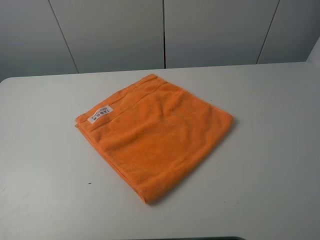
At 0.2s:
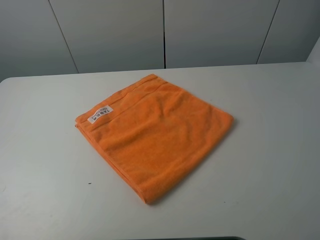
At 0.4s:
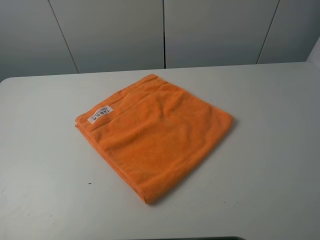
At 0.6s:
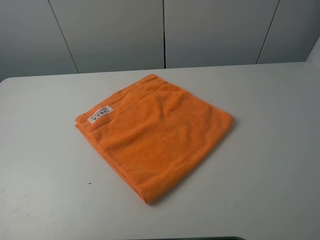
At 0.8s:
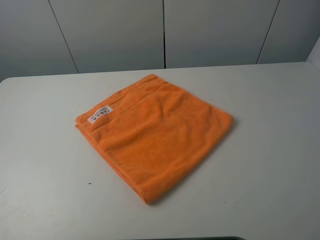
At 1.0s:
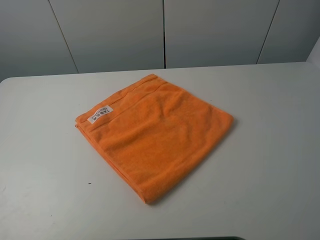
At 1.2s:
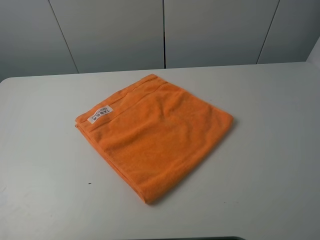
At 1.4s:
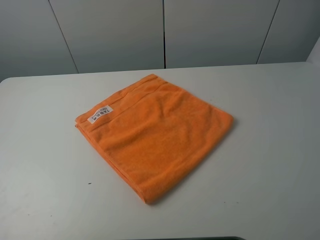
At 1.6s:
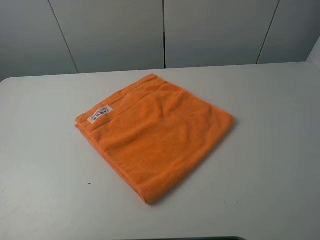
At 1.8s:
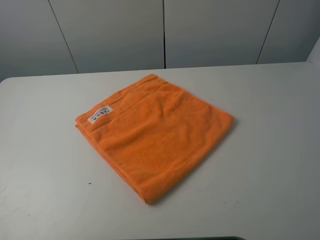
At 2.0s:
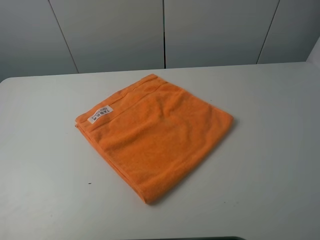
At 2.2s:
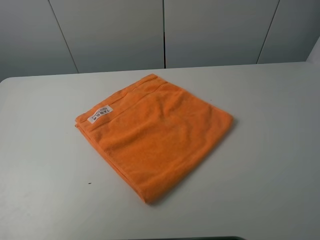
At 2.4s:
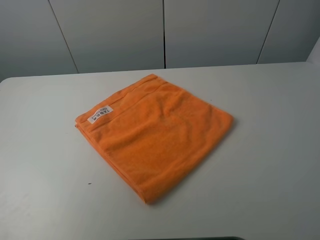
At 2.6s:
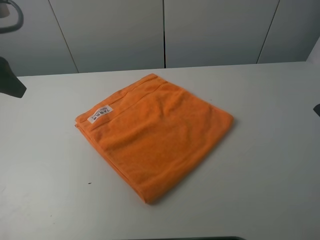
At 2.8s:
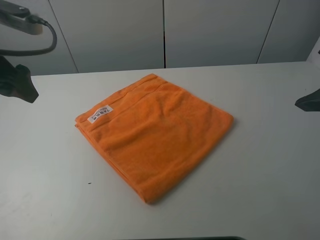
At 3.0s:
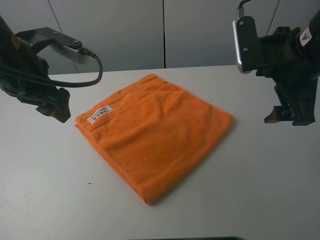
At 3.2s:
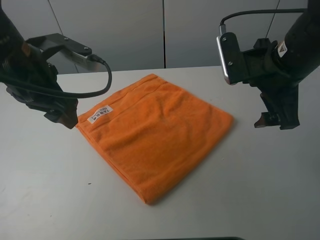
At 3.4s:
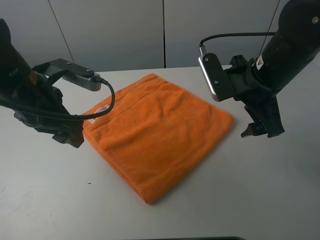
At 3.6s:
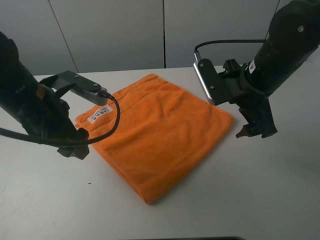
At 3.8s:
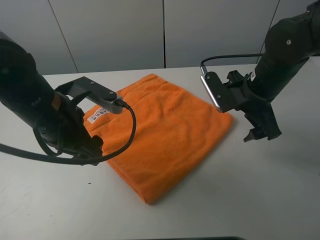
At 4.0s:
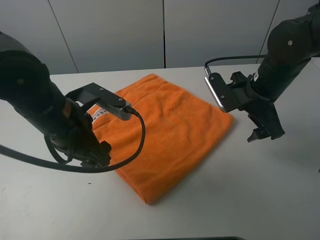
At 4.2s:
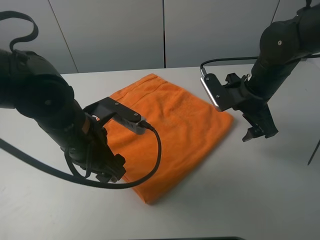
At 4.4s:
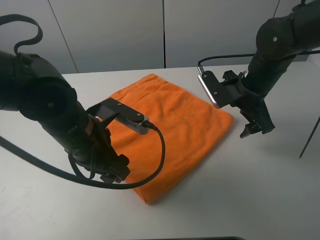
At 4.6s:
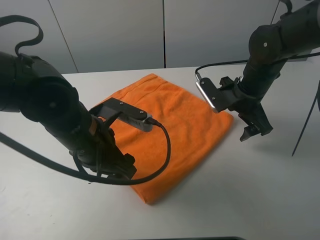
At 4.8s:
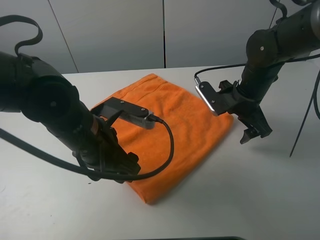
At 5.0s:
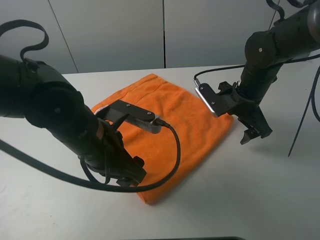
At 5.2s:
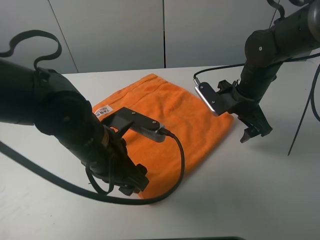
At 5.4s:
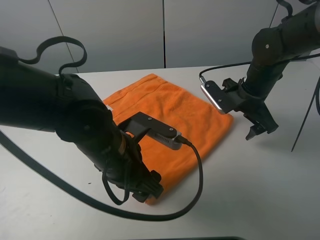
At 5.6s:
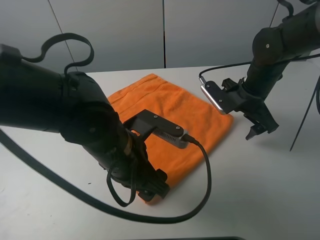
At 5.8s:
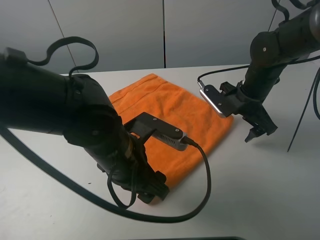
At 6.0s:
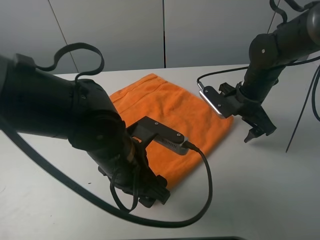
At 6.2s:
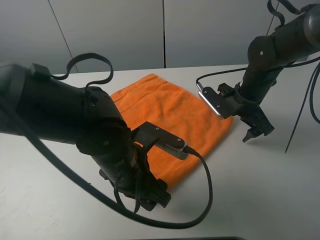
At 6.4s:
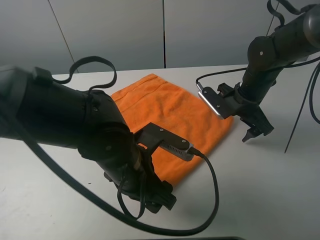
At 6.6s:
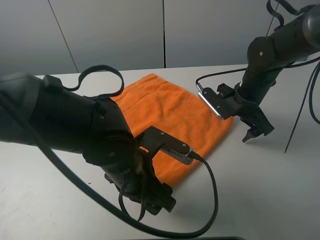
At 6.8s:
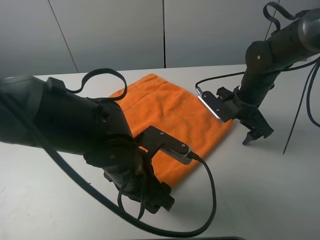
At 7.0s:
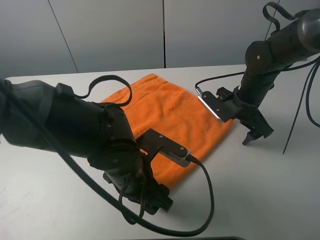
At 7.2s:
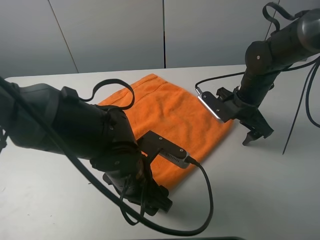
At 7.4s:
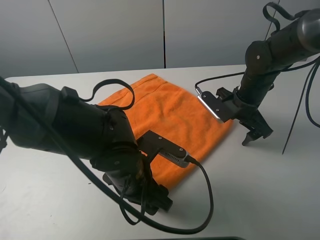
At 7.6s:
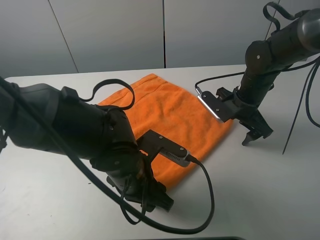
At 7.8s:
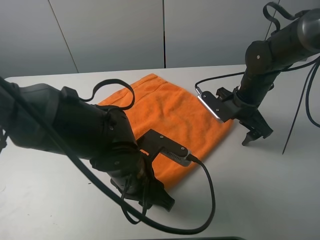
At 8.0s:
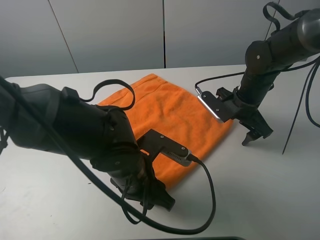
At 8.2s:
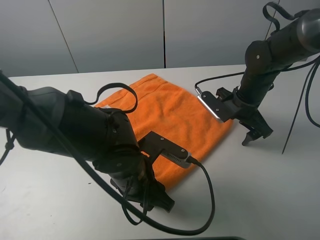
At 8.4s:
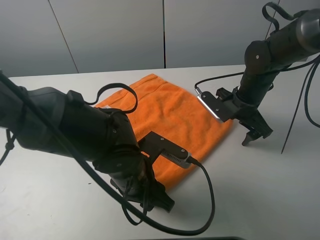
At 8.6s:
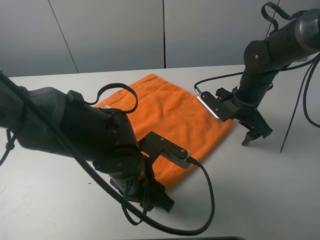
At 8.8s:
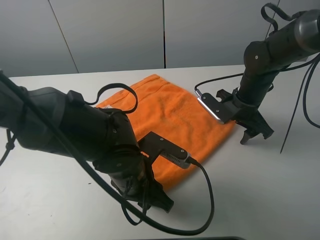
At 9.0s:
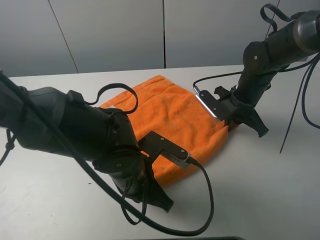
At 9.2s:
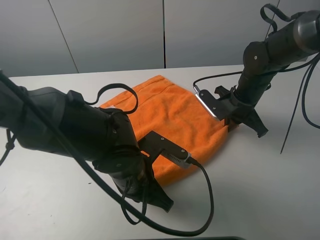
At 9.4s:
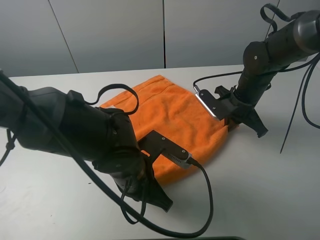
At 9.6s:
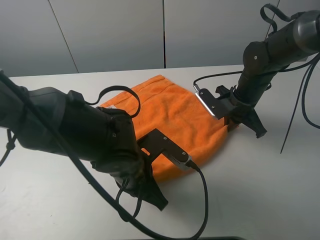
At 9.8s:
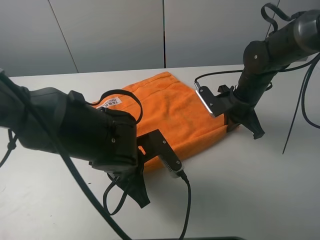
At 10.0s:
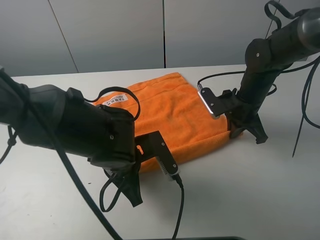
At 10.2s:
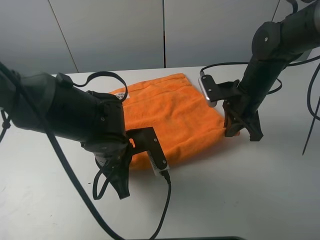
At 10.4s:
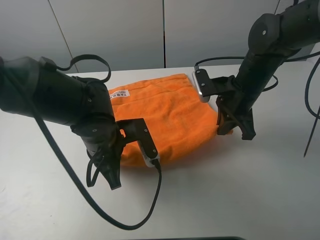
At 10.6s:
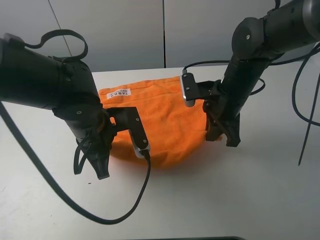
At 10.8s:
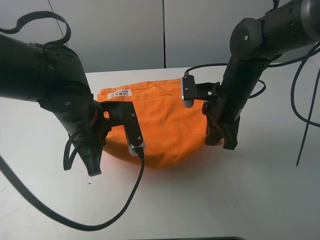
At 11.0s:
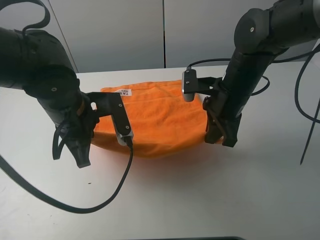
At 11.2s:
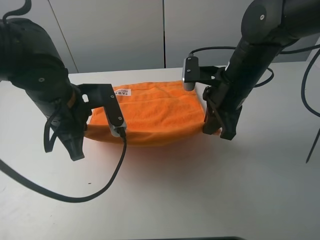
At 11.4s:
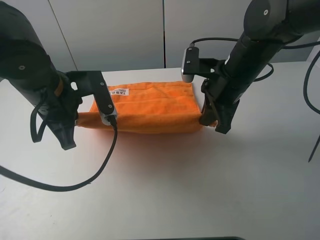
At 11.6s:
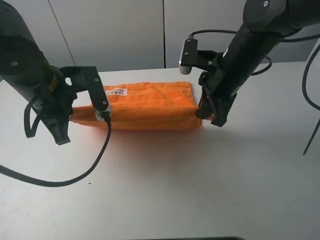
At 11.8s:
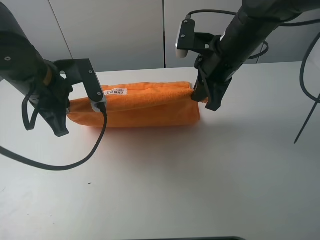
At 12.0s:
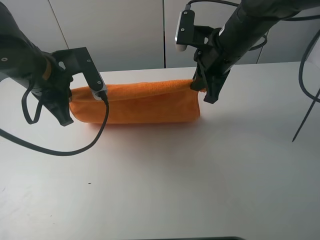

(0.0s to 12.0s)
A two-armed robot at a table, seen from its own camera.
Task of the whole recording: fold the towels on the table.
Step, 0.0s - 9.4s: Grasp the orange towel with the left gripper.
1.6s - 3.0s: Both grippers travel together forward, some 25 cm.
3.0s - 4.4s: The right gripper is displaced downward and forward by roughly 15 cm; the left gripper is displaced downward, to the right and backward by roughly 15 cm.
4.4s - 6.0s: The left gripper moves to the right, roughly 5 cm.
7.6s - 9.0s: The right gripper closes; the left gripper closes up.
9.0s - 10.4s: The left gripper heads forward and to the left, covering approximately 10 cm. Meanwhile the right gripper is displaced upward by roughly 5 cm.
10.4s - 12.0s: The left gripper moves upward, to the left and forward, approximately 15 cm. Meanwhile the right gripper shifts approximately 5 cm upward.

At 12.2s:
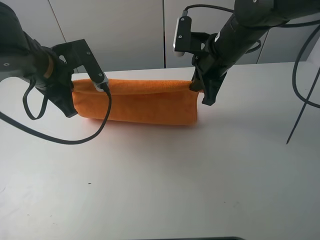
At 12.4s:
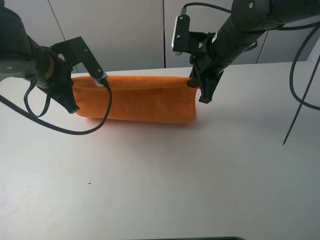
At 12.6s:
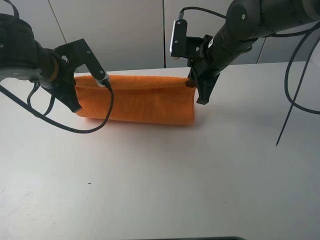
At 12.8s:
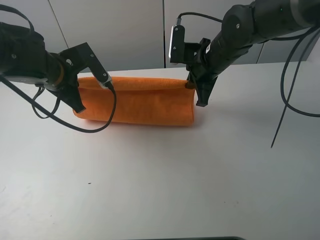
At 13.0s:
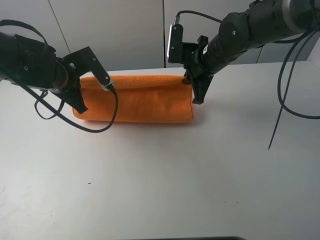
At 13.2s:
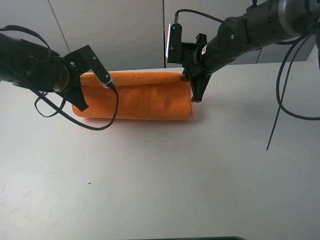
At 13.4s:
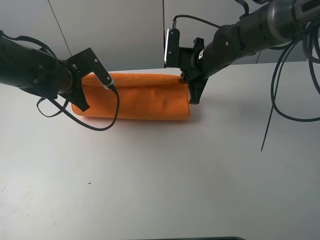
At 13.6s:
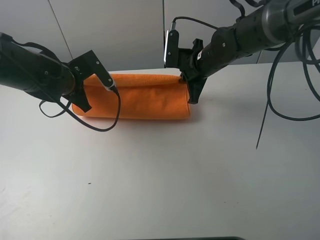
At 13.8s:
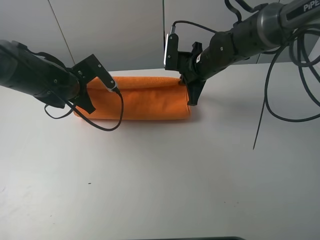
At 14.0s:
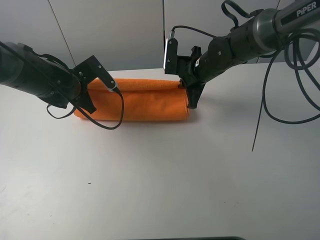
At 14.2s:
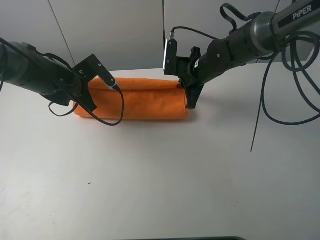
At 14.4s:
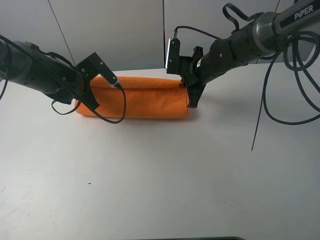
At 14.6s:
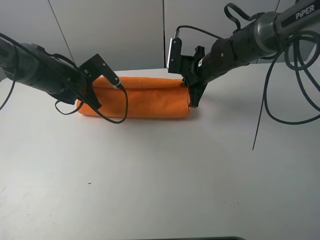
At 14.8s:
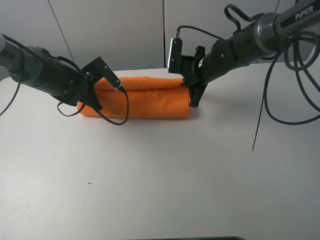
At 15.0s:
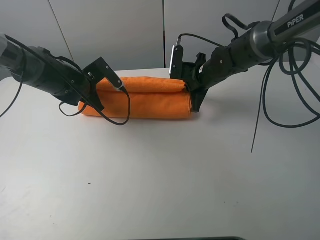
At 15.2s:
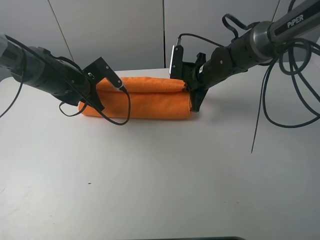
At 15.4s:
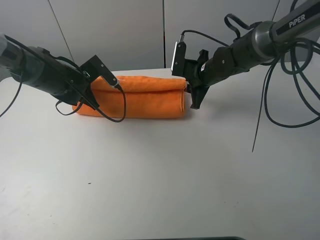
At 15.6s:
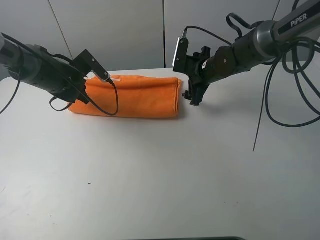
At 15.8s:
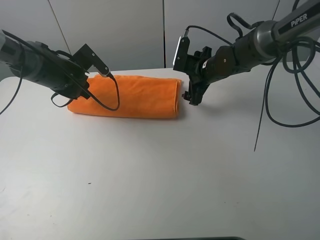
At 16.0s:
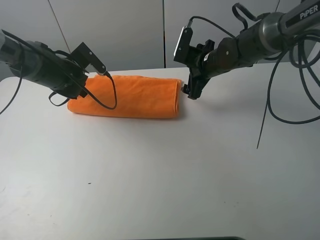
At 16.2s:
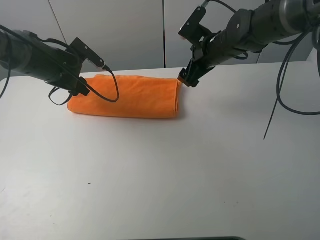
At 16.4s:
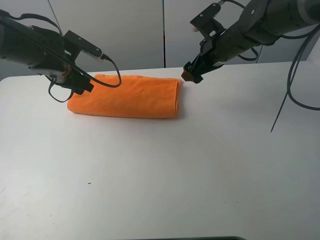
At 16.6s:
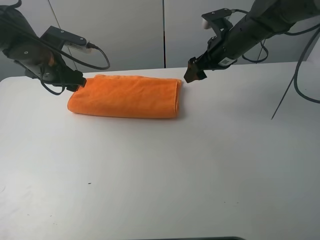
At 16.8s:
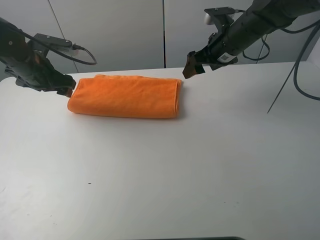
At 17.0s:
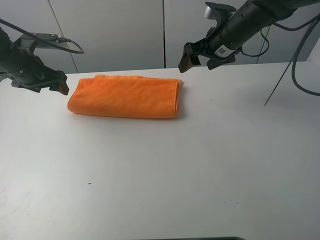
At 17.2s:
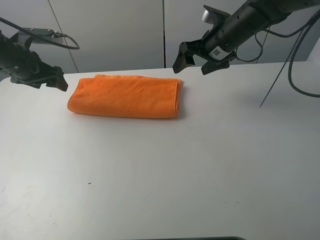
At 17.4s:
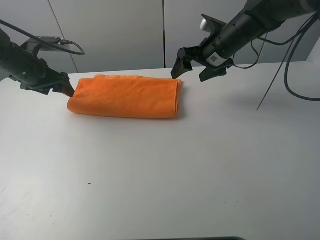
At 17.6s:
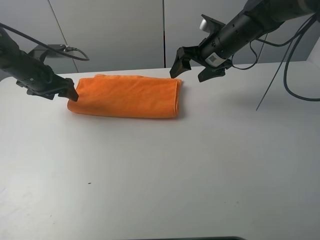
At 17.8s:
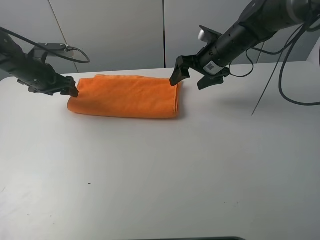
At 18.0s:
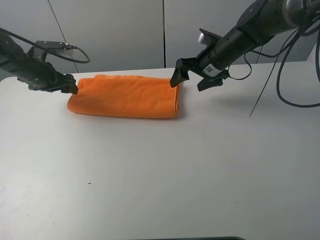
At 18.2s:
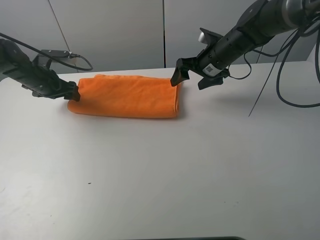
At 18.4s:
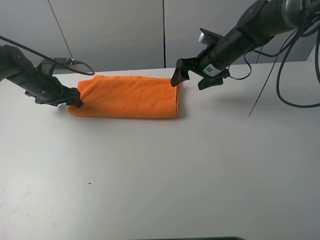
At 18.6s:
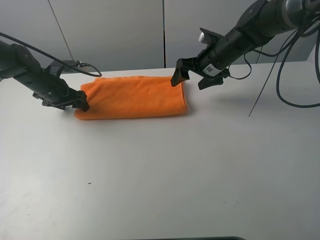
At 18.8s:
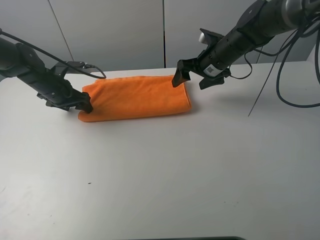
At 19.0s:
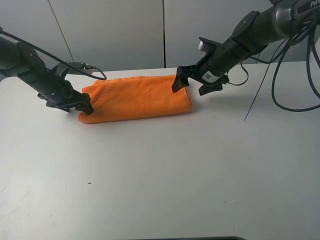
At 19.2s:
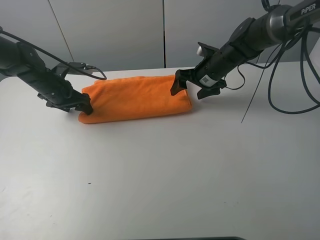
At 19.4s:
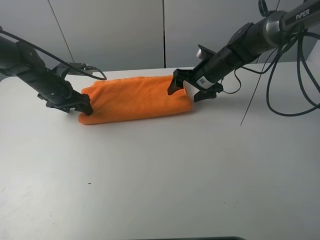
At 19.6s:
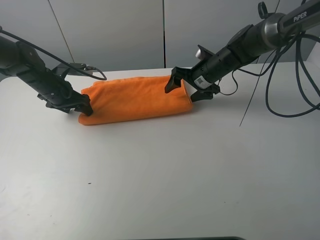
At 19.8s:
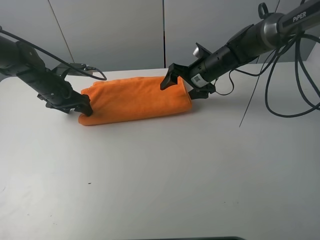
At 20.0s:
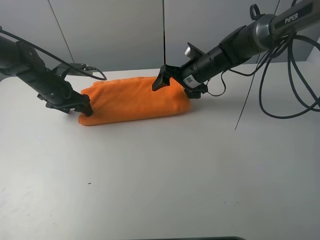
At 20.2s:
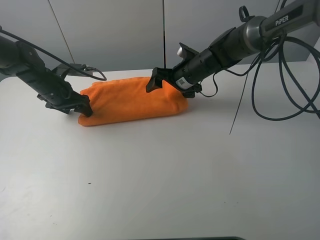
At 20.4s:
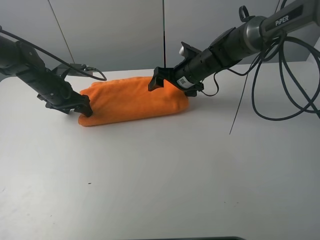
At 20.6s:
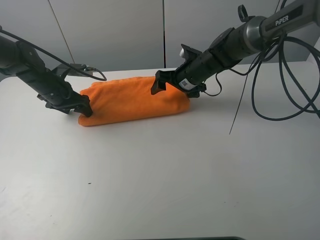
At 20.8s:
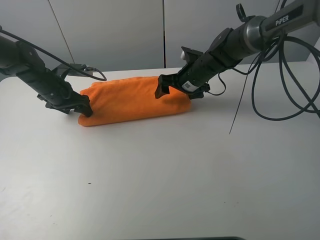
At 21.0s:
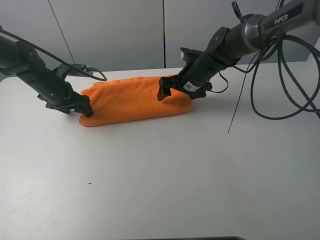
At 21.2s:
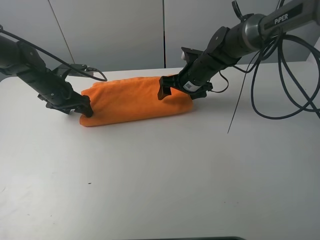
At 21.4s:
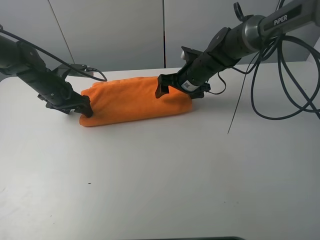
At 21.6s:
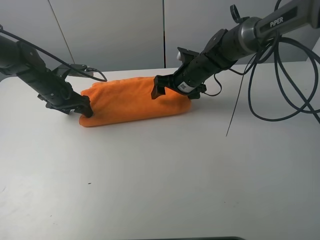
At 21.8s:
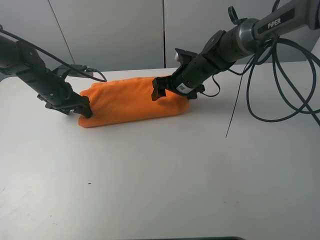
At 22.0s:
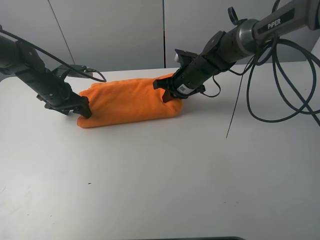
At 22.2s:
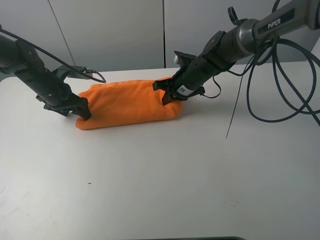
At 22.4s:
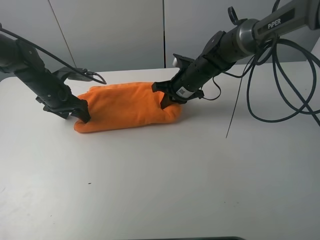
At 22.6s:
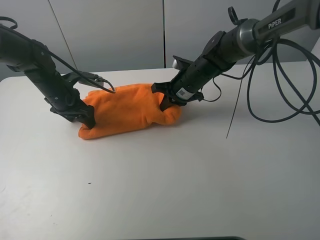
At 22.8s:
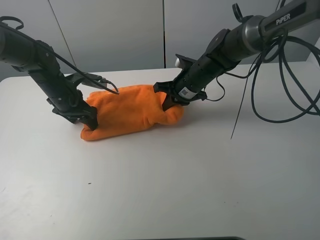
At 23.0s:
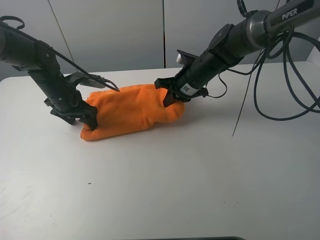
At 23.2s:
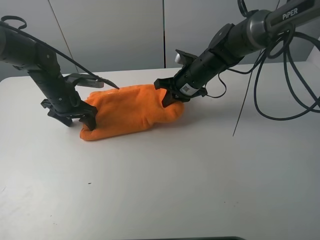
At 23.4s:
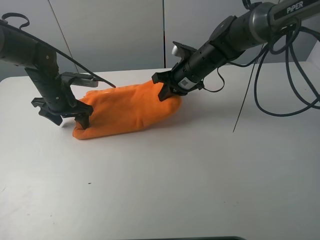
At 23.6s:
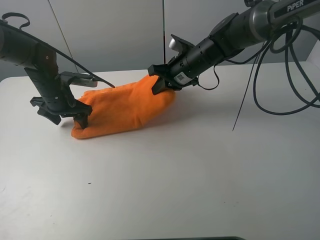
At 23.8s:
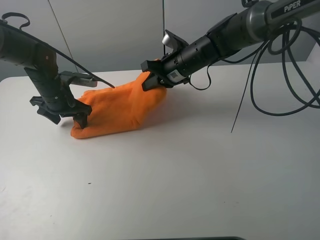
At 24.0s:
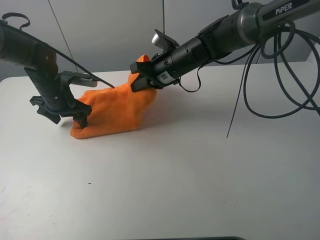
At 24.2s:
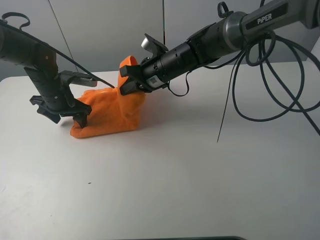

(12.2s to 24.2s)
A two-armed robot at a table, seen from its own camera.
Task of the whole recording: fold the towels on the table.
Step, 12.2s - 16.0s: Fold the orange towel upwards with the right gripper.
Step, 16.2s - 18.4s: Press on the orange towel with the left gripper.
12.2s - 13.8s: Both grippers move downward and forward, approximately 10 cm.
13.8s - 15.2s: The grippers move only a little.
15.2s - 16.6s: The left gripper heads upward and to the left, covering approximately 10 cm, and opens its fingers, while the right gripper travels upward by some 10 cm, and opens up.
16.6s - 18.2s: The left gripper travels downward and to the left by approximately 10 cm.
18.2s - 19.8s: There are only small adjustments of the grippers.
19.8s - 21.2s: The grippers stay close to where they were, moving slightly.
21.2s - 22.6s: The right gripper closes up.
22.6s - 24.2s: The right gripper travels to the left by about 5 cm.
